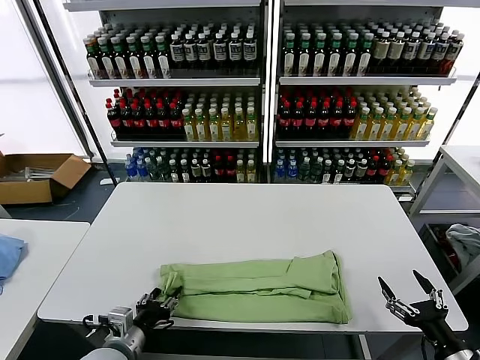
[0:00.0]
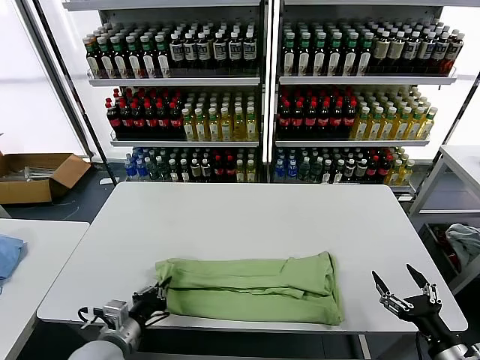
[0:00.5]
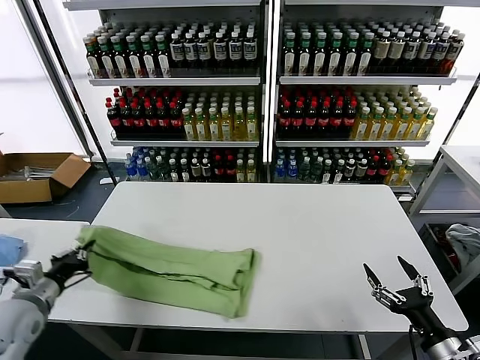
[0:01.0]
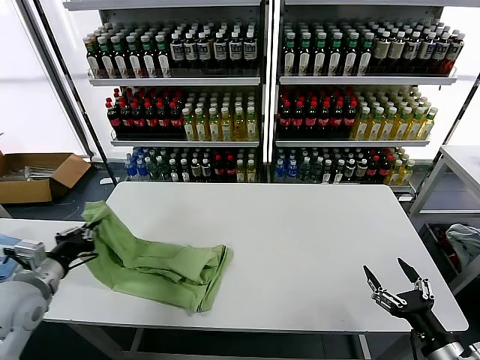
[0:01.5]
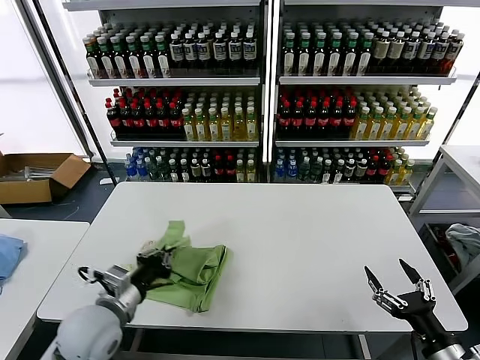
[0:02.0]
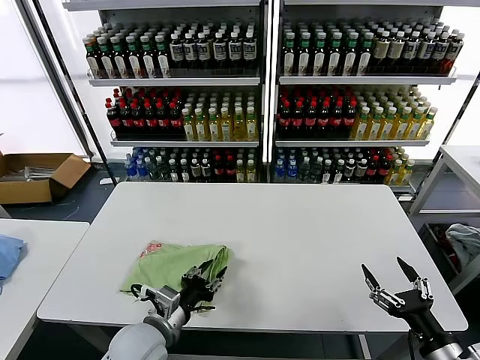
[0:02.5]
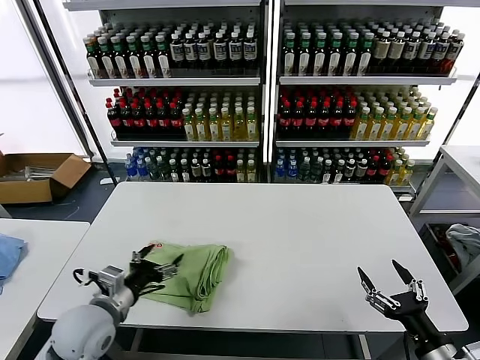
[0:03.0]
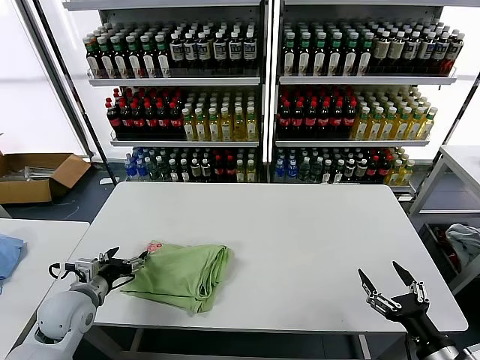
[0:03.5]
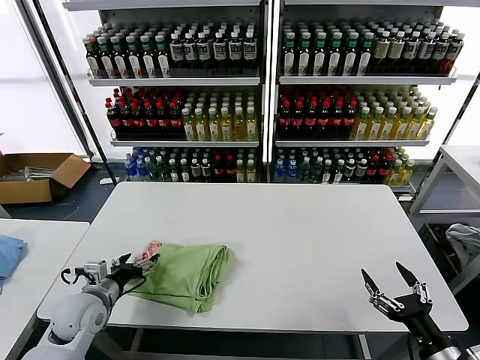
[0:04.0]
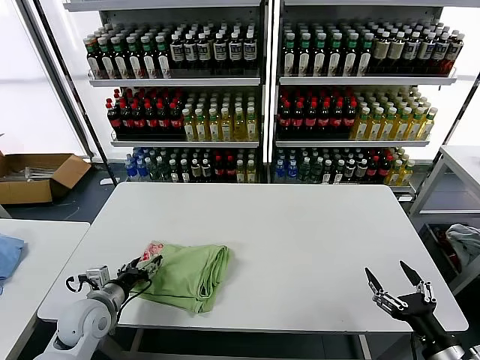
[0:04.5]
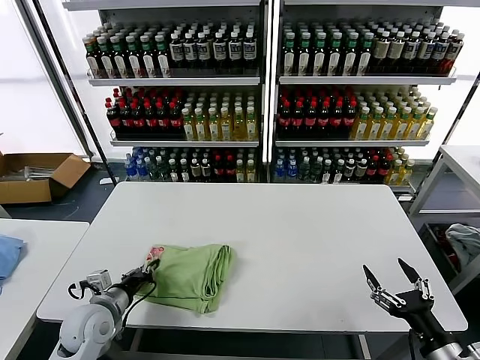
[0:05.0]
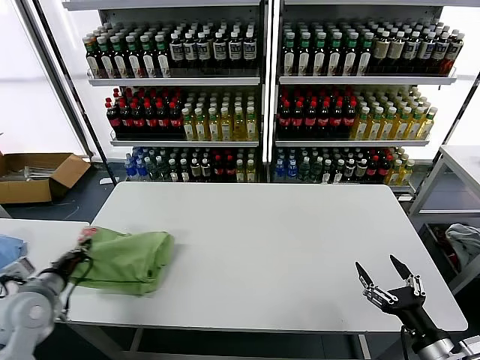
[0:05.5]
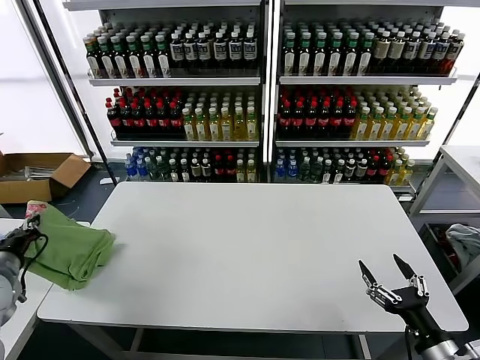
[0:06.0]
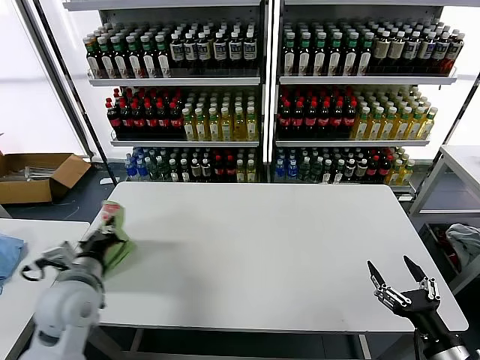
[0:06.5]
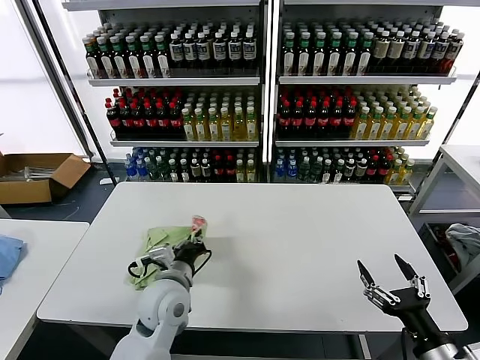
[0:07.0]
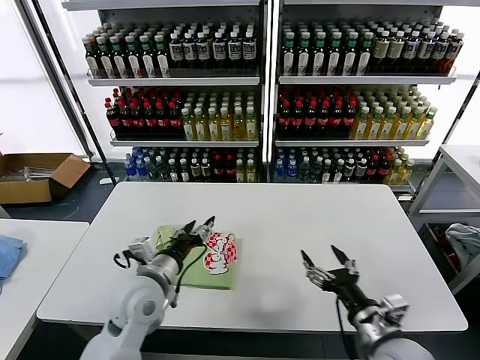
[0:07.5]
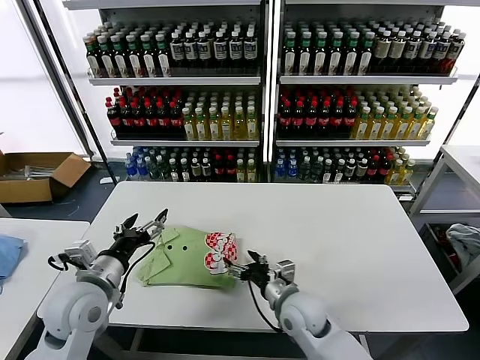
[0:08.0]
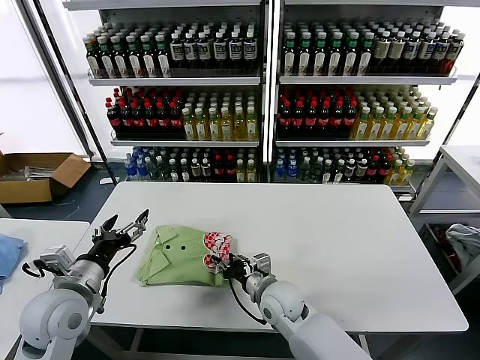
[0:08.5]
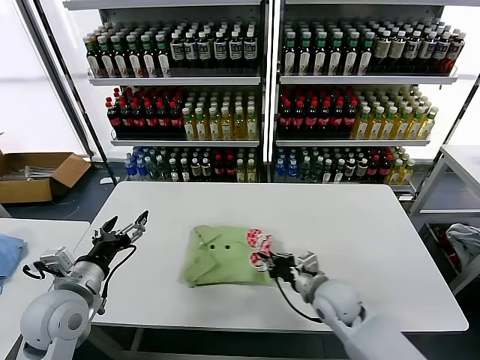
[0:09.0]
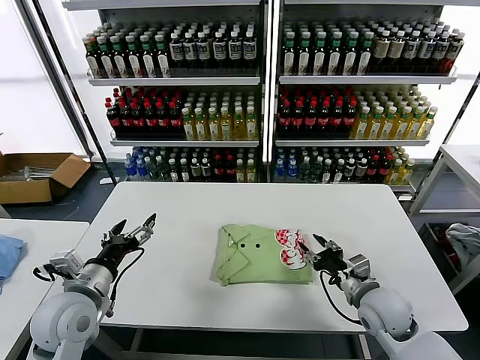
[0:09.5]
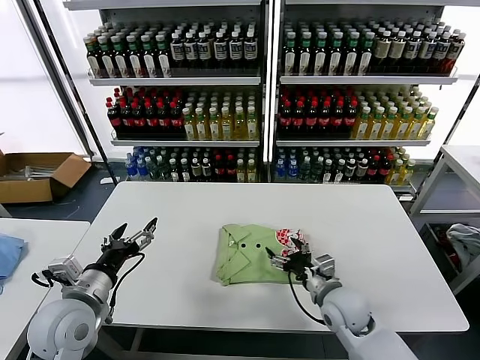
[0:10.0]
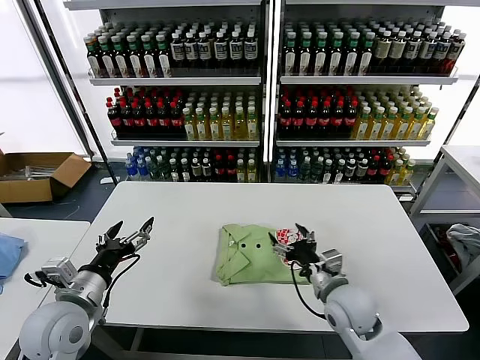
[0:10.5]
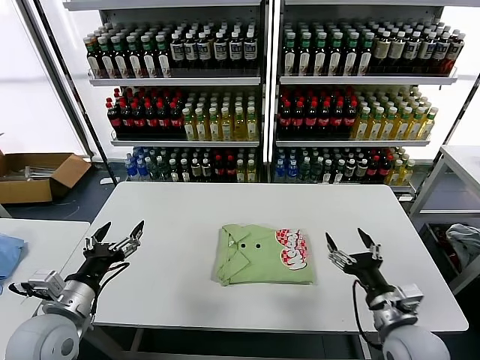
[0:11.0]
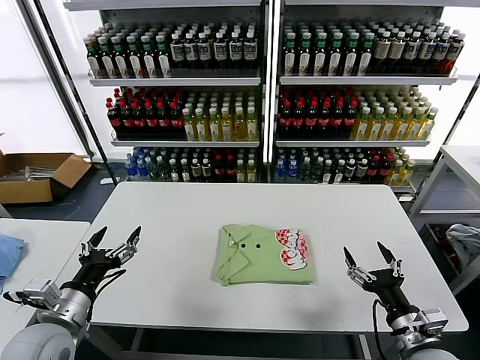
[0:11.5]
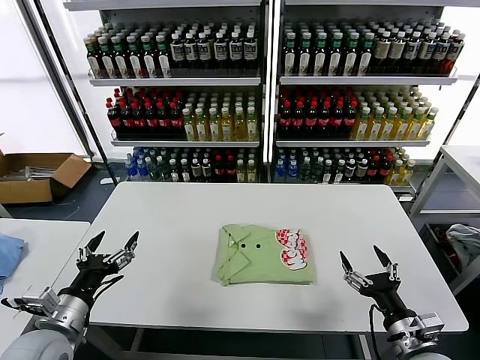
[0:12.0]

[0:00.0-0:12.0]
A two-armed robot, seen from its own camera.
Task of the whole recording: fold and organize the clothes.
Step, 0:00.5 to 0:02.5: use the left gripper to drag the left edge of the fabric to the left and folds it over the right edge.
Step, 0:03.0 to 0:07.0: Flip the folded clothes over with left gripper.
Step, 0:07.5 to 0:10.0: Drag the clothes to the center of the table.
0:00.0 to 0:02.0: The left gripper moves upward and forward, some 10 cm, moves some 15 cm to the left and comes back, and closes up.
0:02.0 to 0:04.0: The left gripper travels to the left, downward and forward by some 10 cm, and opens.
0:04.0 to 0:06.0: The left gripper is displaced to the left and upward by roughly 15 cm, and closes up.
0:06.0 to 0:08.0: The right gripper goes roughly 30 cm to the left and forward. Meanwhile the left gripper shifts roughly 20 cm to the right, and opens its fingers.
0:08.0 to 0:10.0: The right gripper swings left and right, some 20 cm each way, with 2 reversals, and closes and opens again.
0:10.0 to 0:12.0: The right gripper travels backward and to the right by about 15 cm; the left gripper shifts by about 5 cm.
